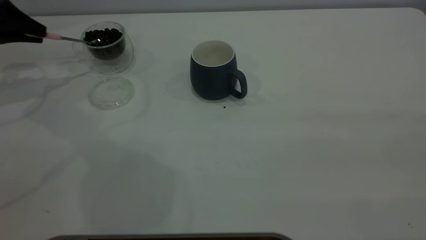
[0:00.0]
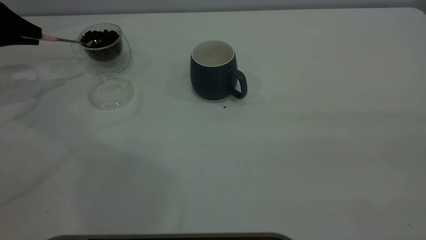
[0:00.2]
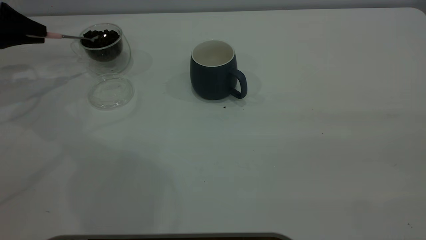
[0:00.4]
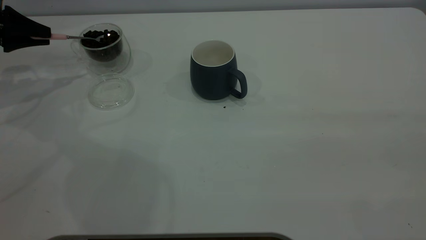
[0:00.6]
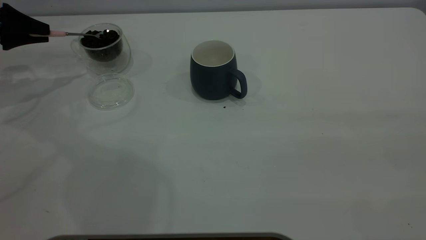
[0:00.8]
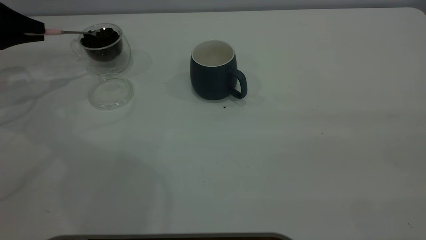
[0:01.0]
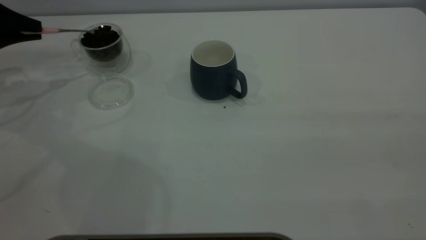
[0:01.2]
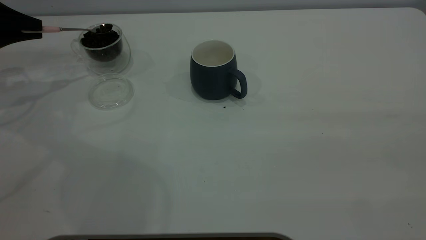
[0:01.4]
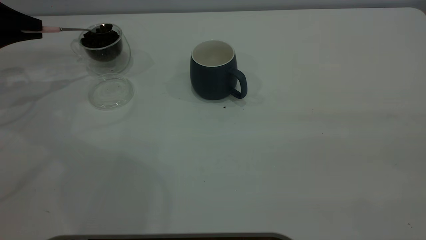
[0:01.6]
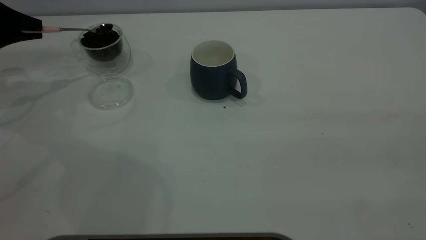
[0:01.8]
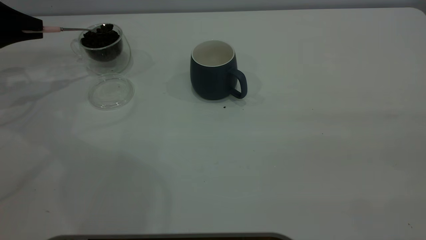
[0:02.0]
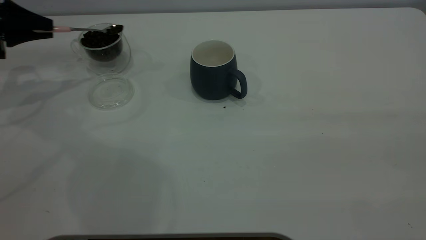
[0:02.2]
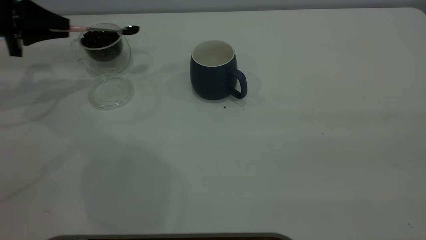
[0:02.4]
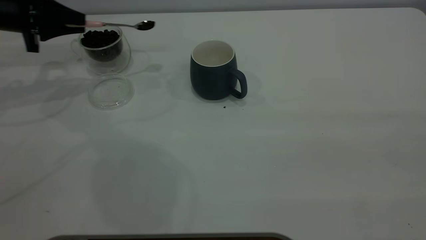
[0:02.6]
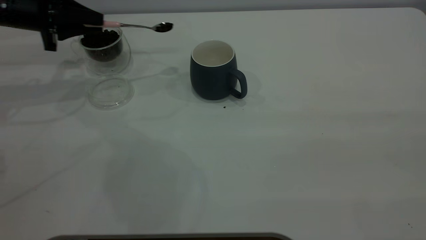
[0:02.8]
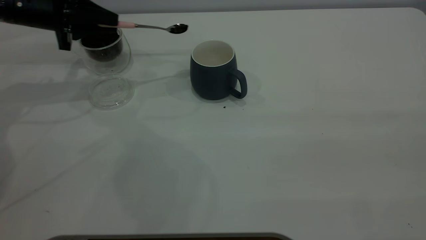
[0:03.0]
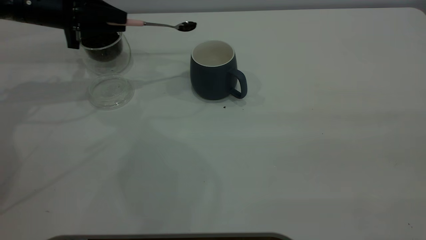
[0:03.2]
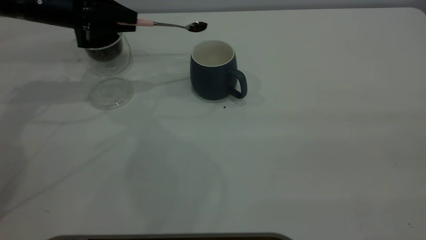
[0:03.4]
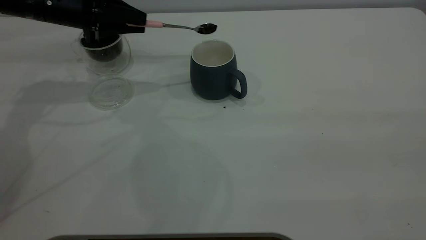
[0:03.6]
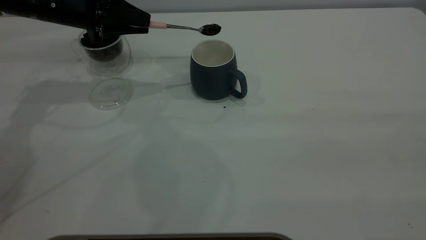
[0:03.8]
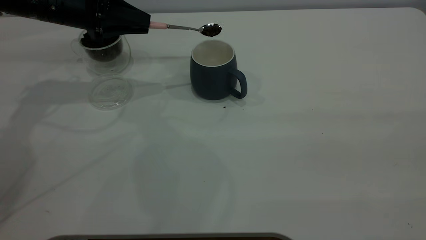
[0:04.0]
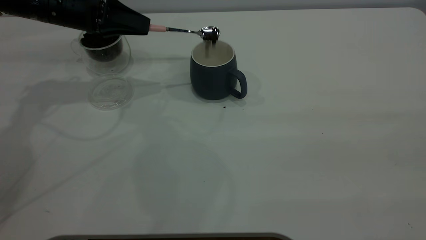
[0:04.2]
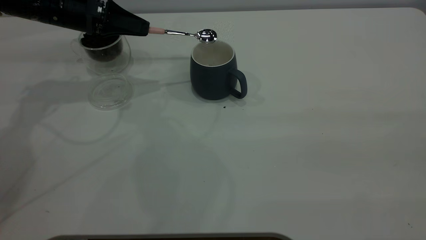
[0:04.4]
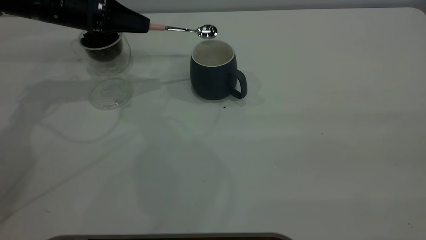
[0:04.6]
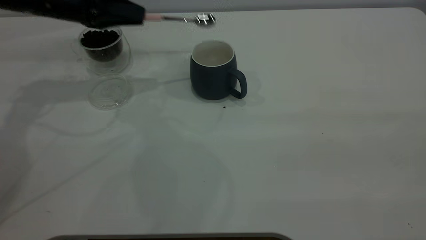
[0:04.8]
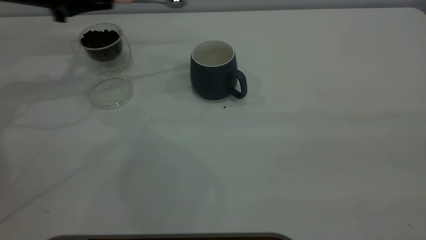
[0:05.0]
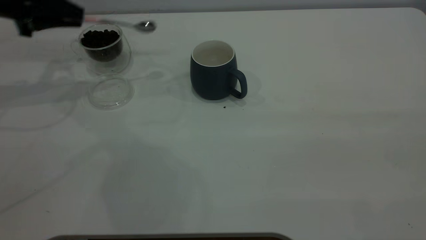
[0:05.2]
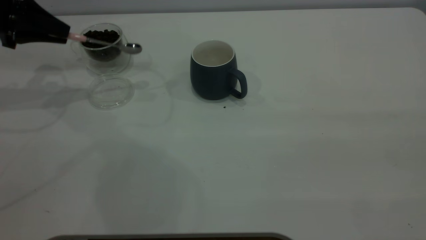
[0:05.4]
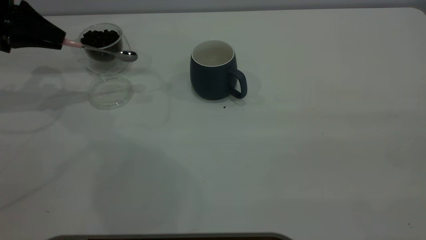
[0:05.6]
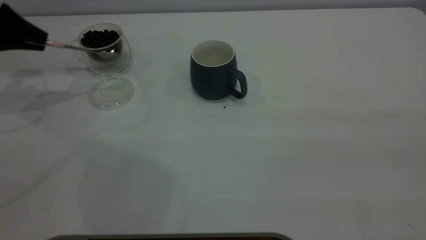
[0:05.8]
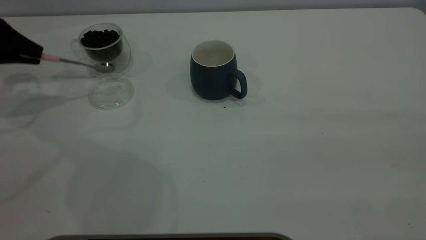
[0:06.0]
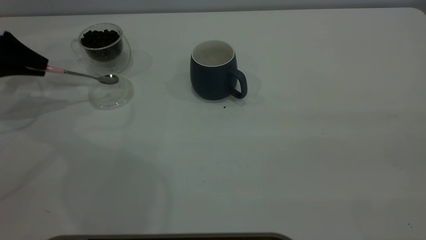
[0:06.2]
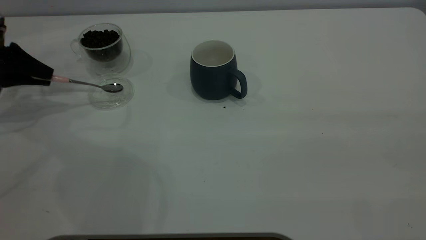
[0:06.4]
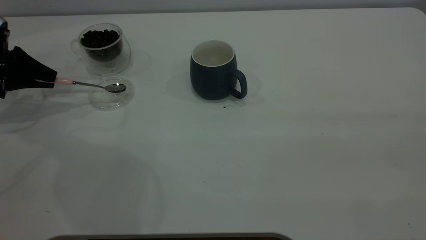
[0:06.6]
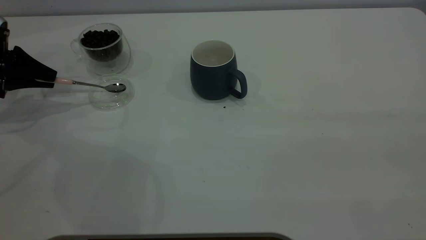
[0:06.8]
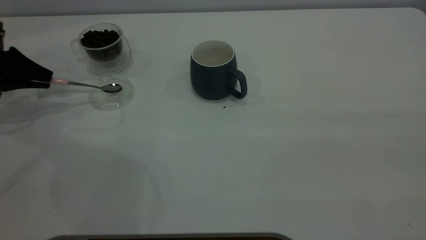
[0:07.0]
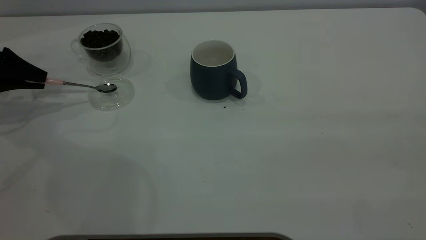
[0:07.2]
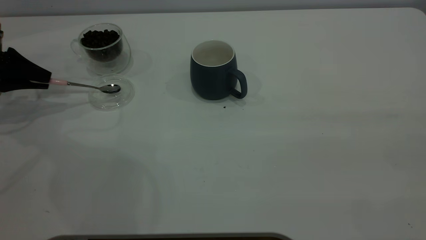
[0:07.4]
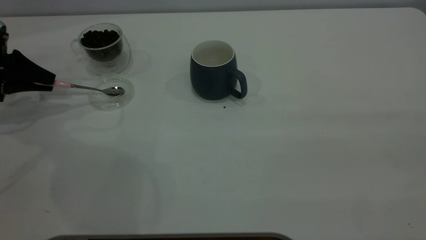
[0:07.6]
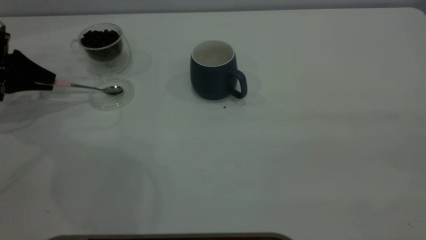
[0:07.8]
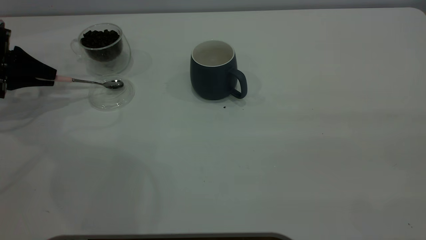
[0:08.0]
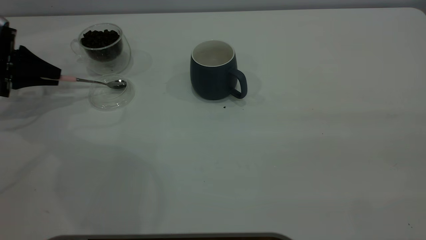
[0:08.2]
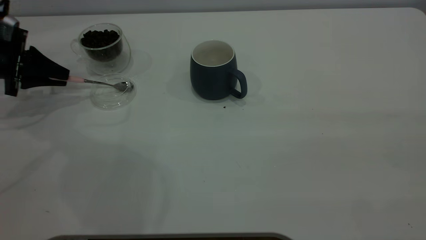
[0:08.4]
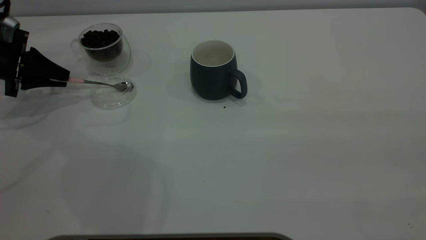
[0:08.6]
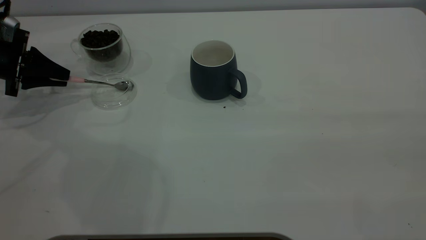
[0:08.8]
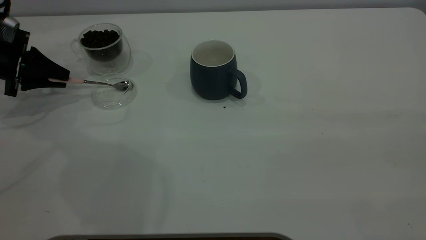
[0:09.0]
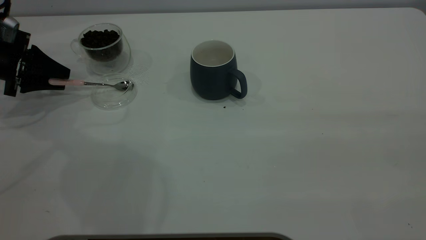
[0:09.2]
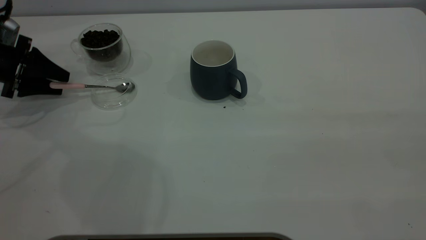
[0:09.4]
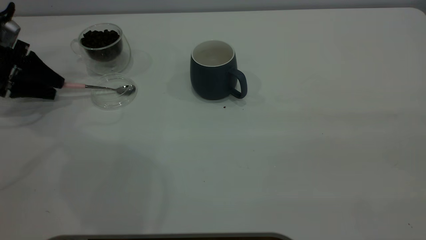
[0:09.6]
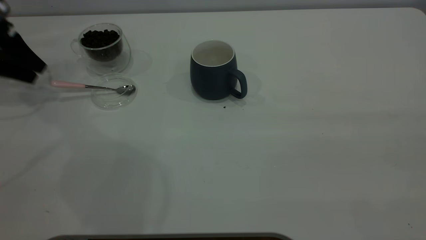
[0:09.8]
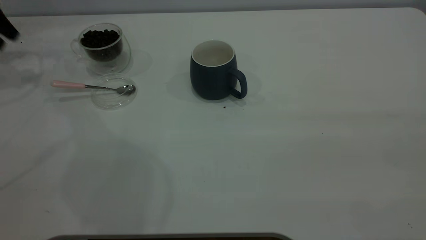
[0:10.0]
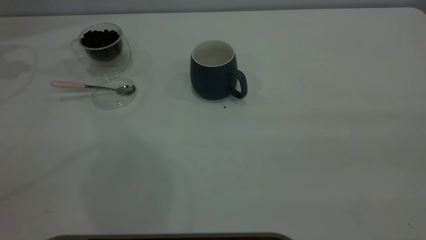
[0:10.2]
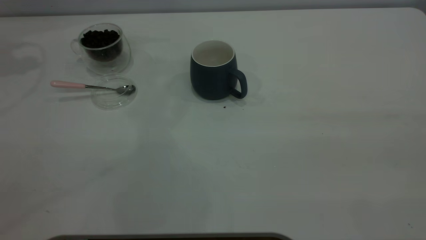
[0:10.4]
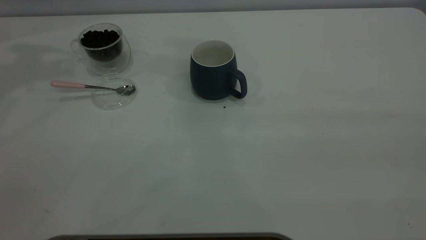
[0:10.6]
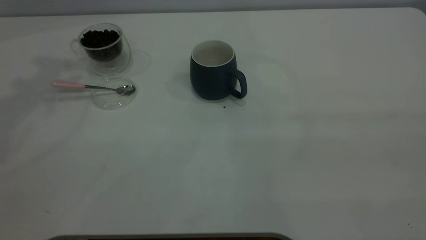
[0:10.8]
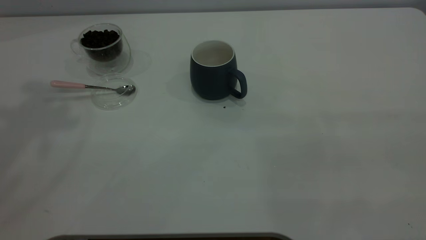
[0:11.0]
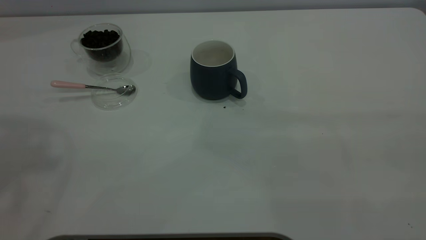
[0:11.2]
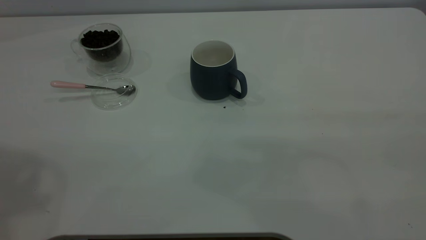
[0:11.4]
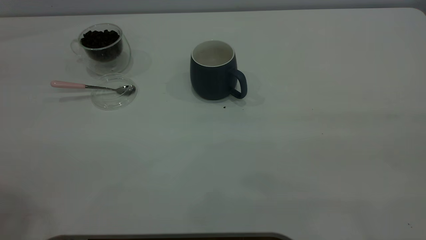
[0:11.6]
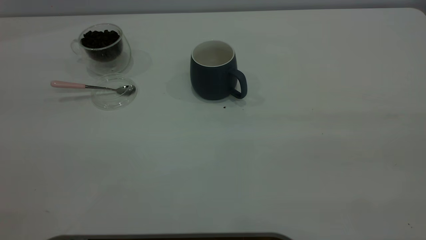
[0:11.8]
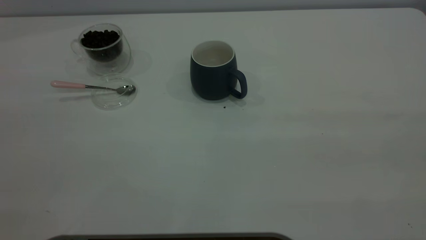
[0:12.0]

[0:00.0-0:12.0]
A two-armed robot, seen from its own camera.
Task of the whole recording: the right gripper place the grey cup in the center of the table, the left gripper take the pink spoon from the cup lid and scoop out the coffee beans from the coffee cup and put them into the grey cup, the left gripper put the spoon back into the cup lid.
Step, 0:00.0 to 0:04.4: Scoop a spoonful of beans into the cup.
Step, 0:04.8 to 0:09.8: Place the spoon back in its original place.
0:00.0 to 0:01.6: The grippers move only a little.
0:01.6 to 0:03.0: The left gripper heads to the right, covering roughly 15 cm.
0:04.4 to 0:06.0: The left gripper is displaced to the left by about 15 cm.
0:06.0 to 0:07.6: The left gripper moves some 5 cm.
0:07.6 to 0:09.0: The grippers move only a little.
0:09.0 to 0:10.4: The left gripper heads upward, covering roughly 30 cm, and opens up.

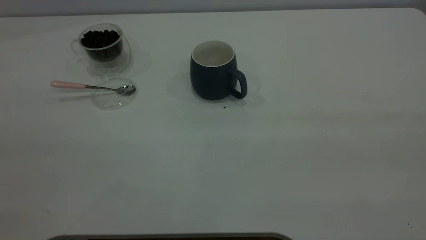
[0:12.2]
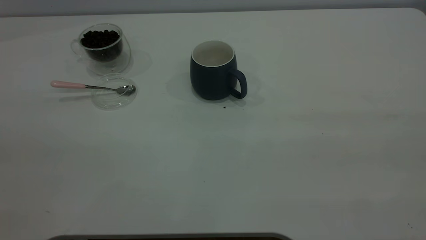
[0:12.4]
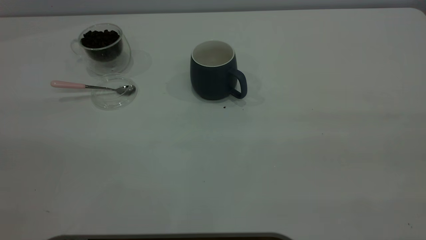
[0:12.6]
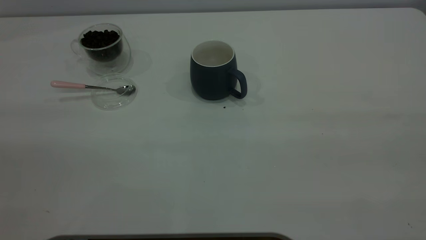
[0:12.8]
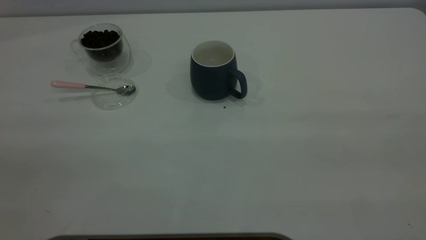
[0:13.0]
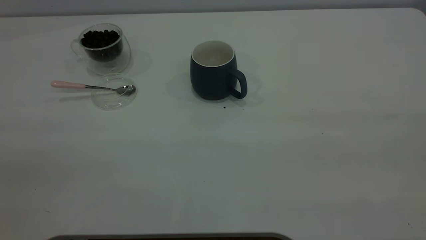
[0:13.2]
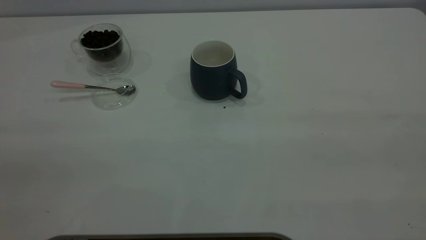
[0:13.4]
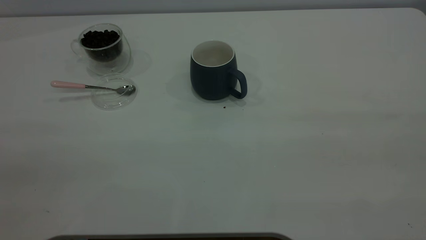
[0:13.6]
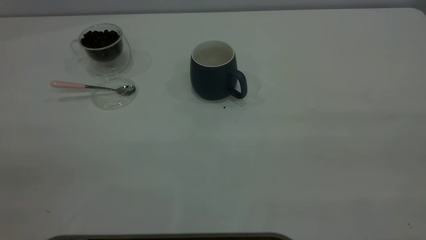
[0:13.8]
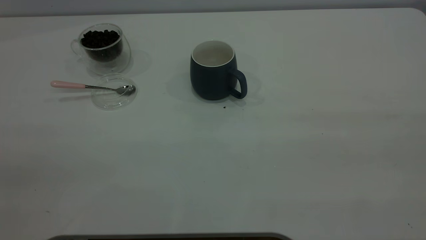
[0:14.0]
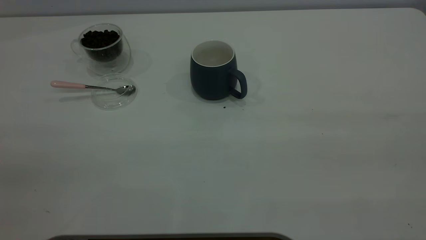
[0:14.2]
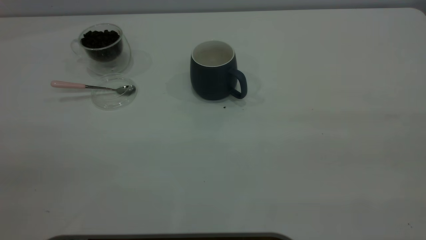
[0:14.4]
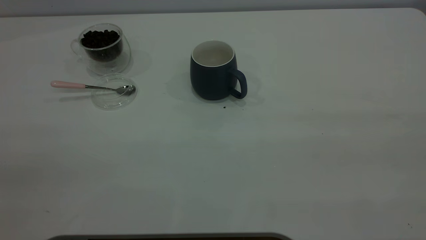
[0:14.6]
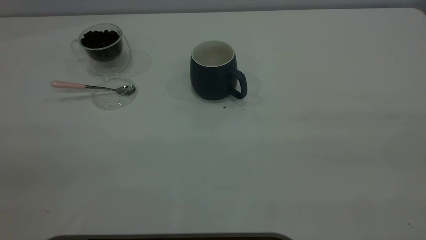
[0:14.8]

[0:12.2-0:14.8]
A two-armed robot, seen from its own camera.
Task of the whole recording: the right gripper place the grey cup in the center of the table, the left gripper take the pink spoon from the cup lid and scoop out the coffee beans from the coffee cup and put them into the grey cup, the left gripper put the spoon back into the cup lid.
0:13.4 to 0:14.8: Both grippers stay put.

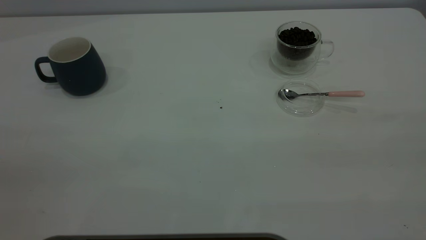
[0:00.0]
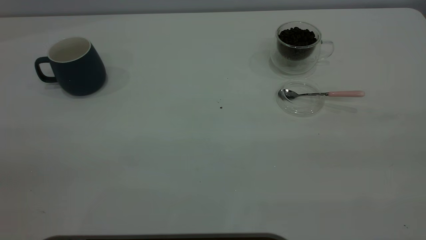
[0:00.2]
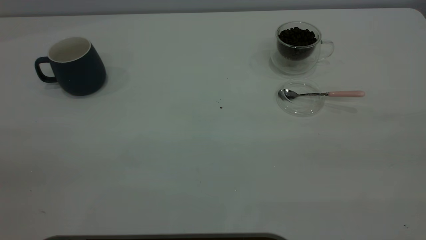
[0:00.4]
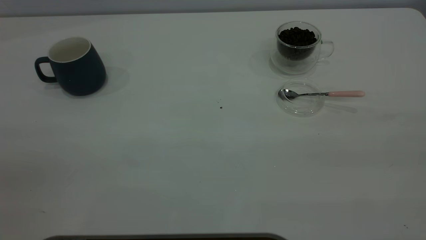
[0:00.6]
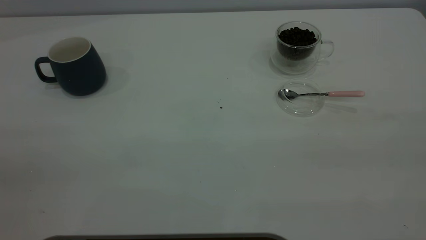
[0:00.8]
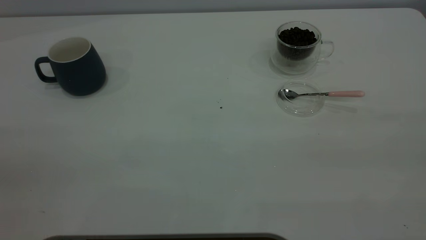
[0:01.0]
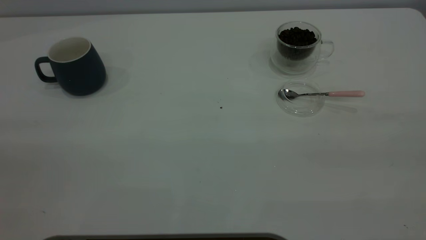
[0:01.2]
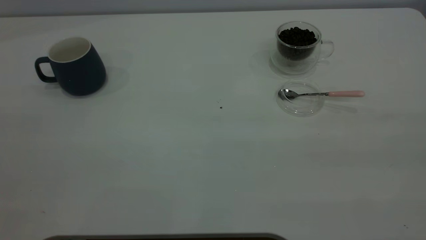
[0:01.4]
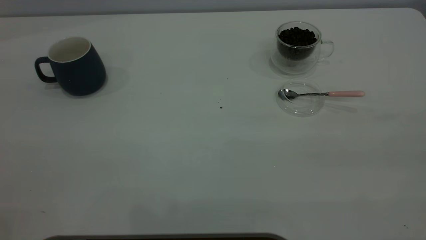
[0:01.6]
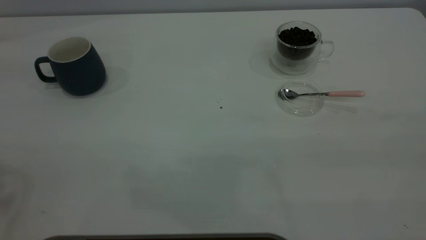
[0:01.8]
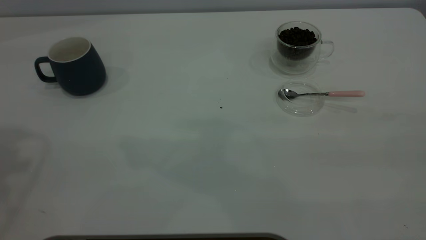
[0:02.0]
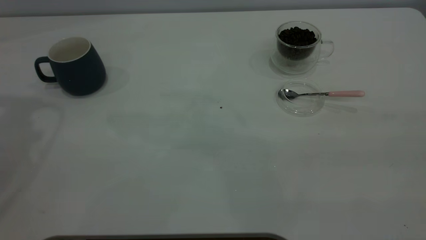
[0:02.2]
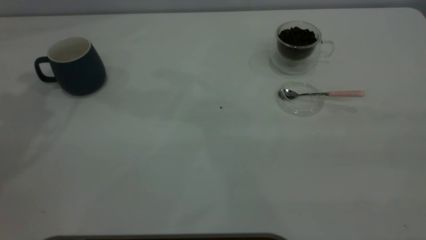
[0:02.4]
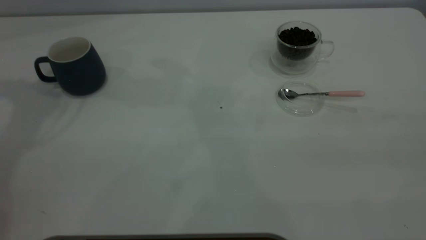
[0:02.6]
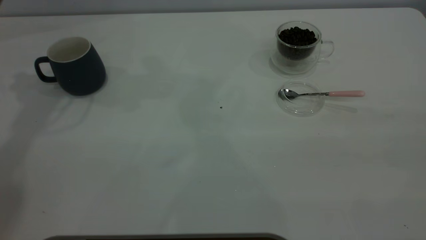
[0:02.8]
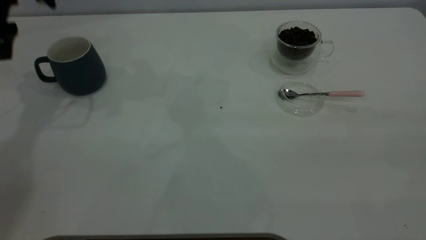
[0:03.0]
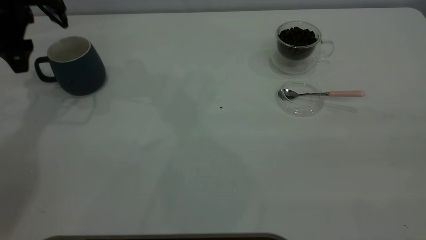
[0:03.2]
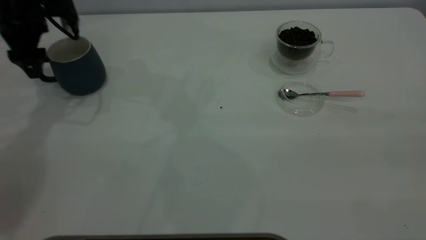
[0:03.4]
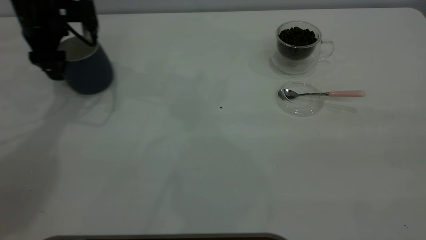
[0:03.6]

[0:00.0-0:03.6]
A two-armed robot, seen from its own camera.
Task of the whole recording: the left gripper place the grey cup in the center of the table, the right gripper take the pink spoon from the cup lid and scoop out the coffee beans from the coffee cup and put them into the grey cup, the right gripper put the spoon back into the cup lid.
0:01.8 to 0:03.6: The left gripper goes approximately 40 cm downward and forward.
